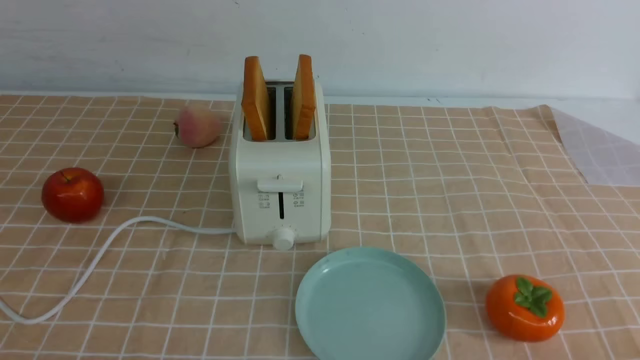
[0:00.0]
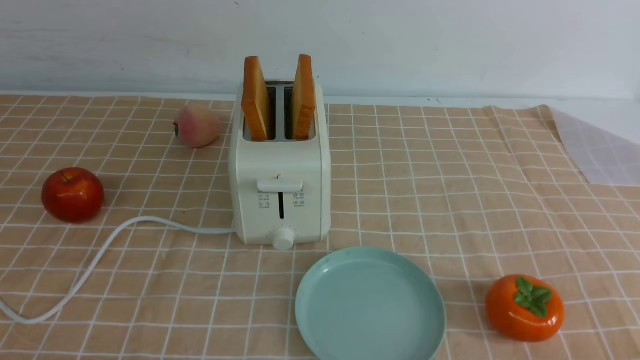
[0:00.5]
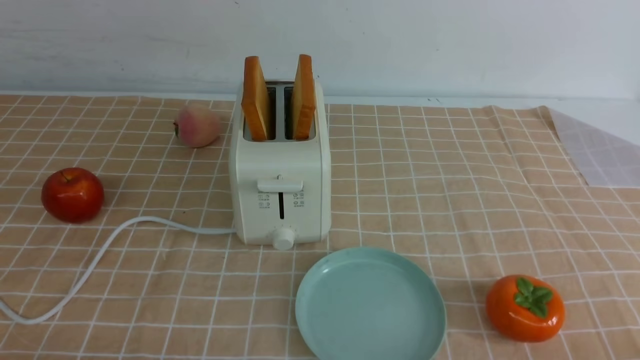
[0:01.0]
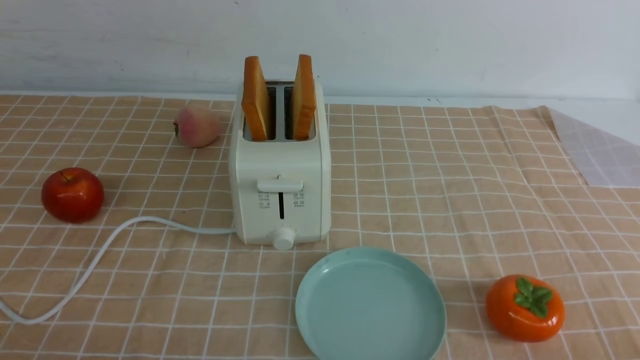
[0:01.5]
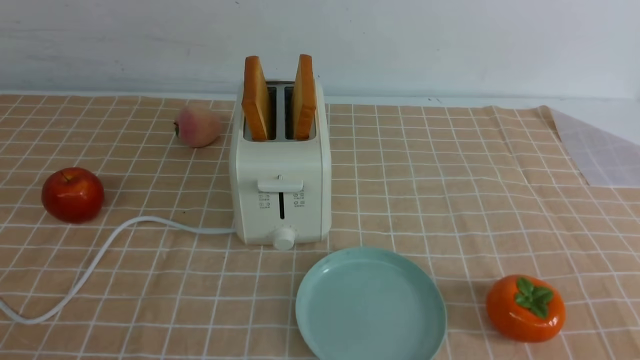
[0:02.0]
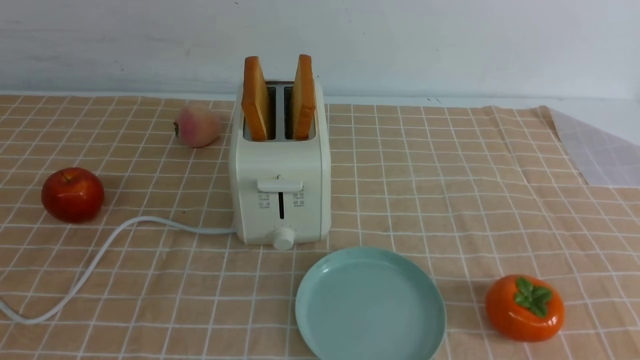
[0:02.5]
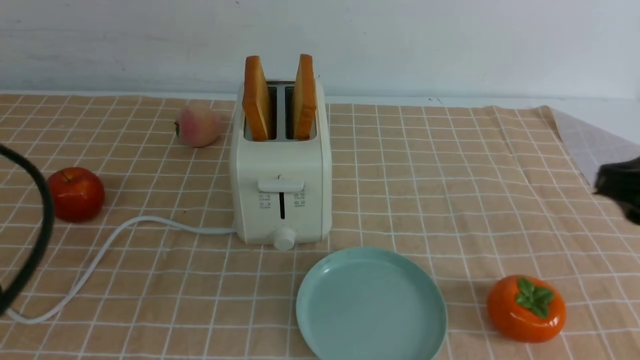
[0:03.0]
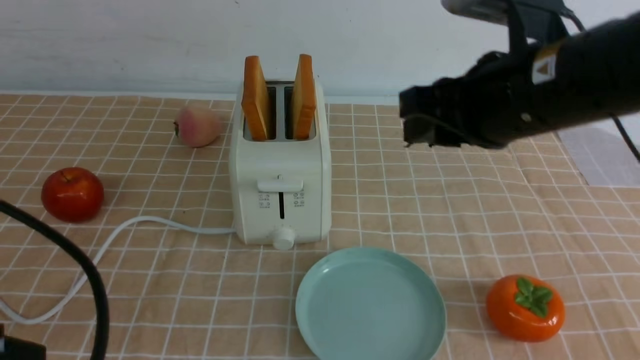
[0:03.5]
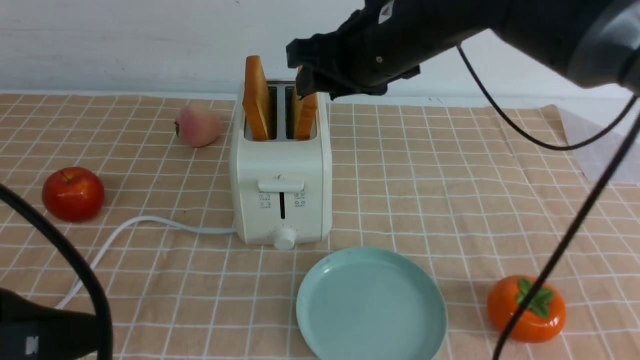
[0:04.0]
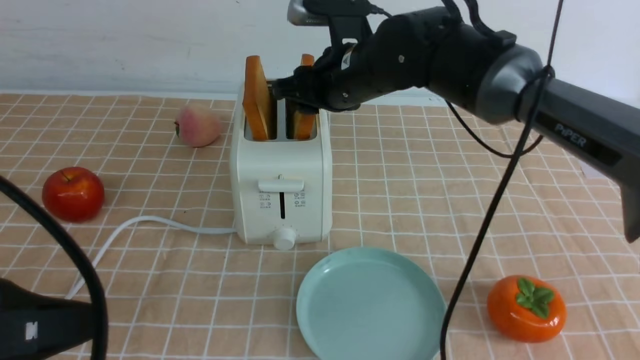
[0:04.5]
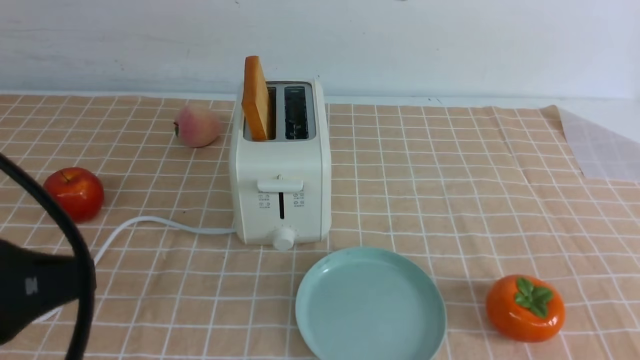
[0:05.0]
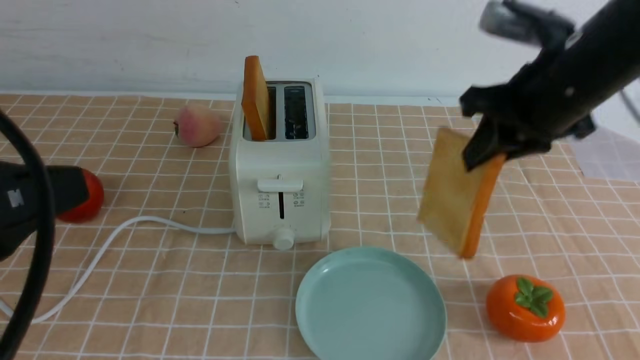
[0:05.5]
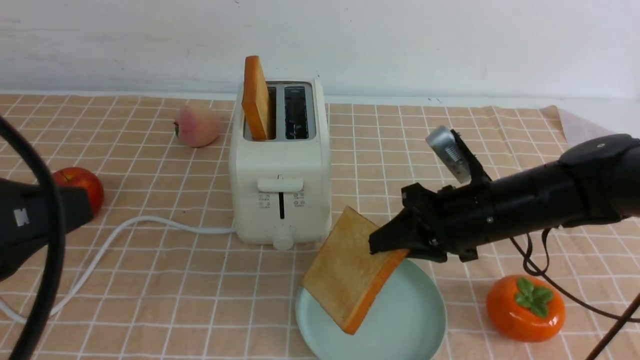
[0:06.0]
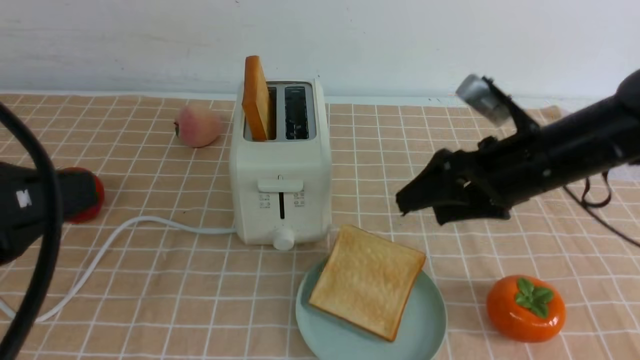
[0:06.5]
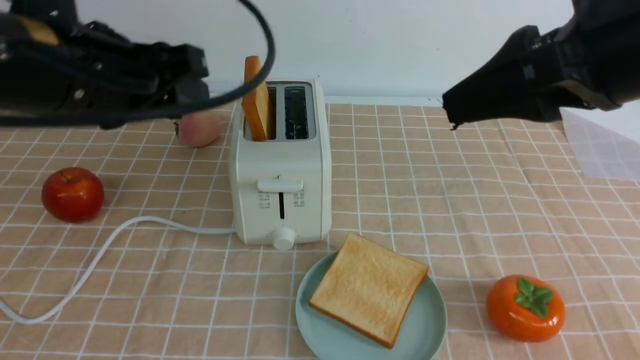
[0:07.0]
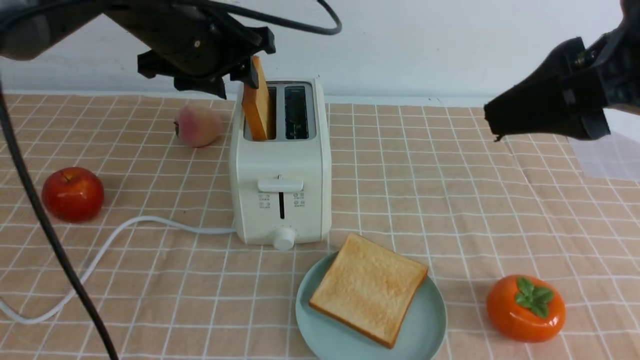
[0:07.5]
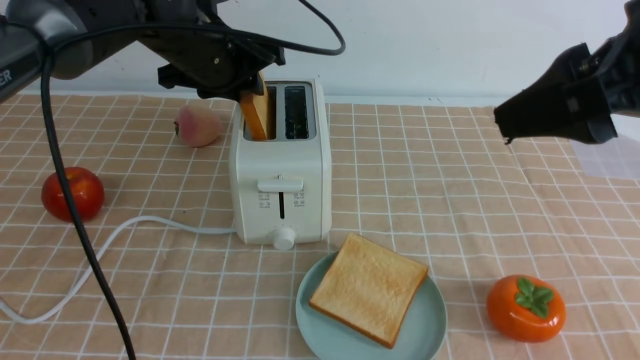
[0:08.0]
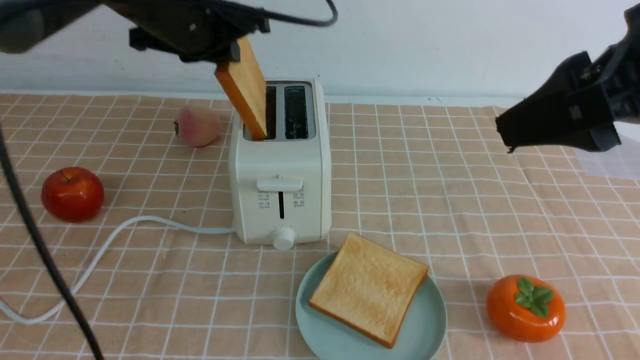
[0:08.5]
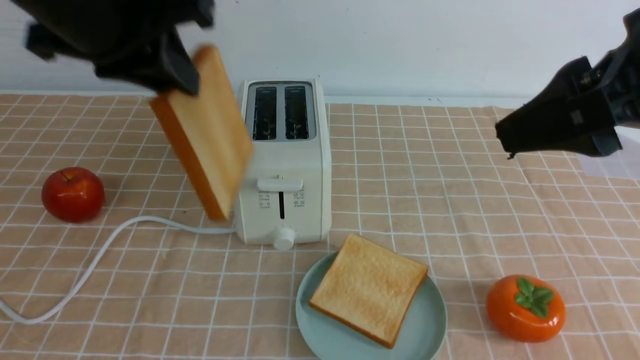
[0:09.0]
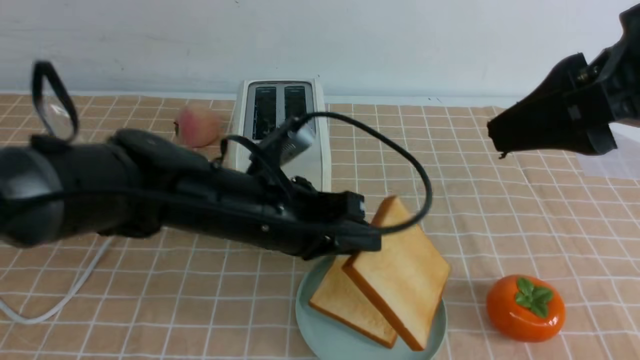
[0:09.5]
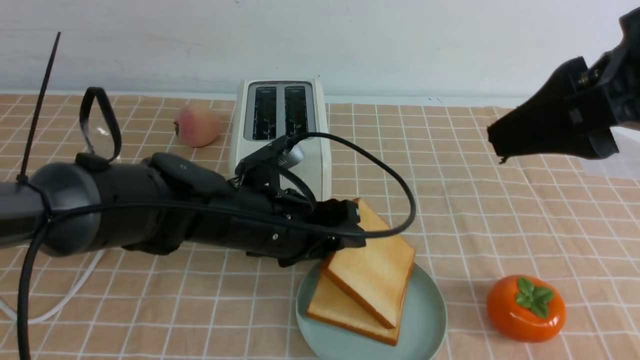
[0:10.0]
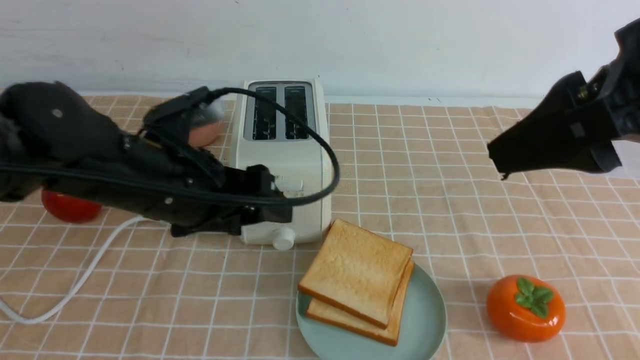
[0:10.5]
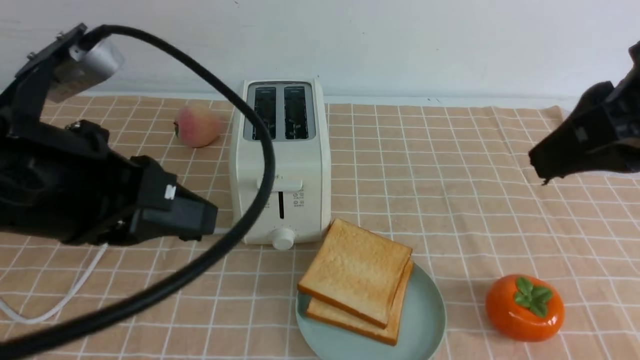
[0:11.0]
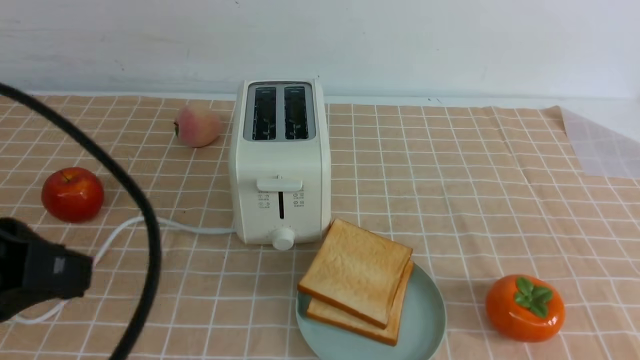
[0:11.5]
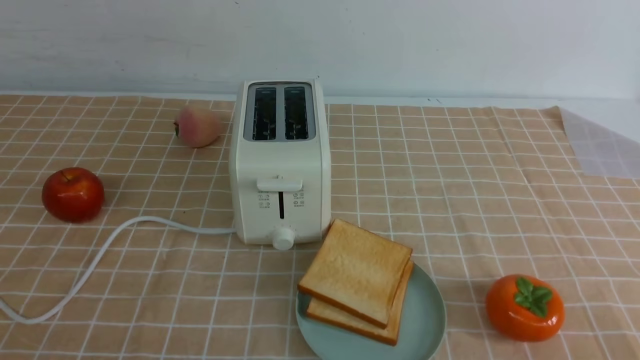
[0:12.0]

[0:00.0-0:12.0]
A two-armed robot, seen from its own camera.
Task of the whole recording: take toasted bread from bread machine on light coffee tablecloth place on plate.
Step, 0:00.0 to 0:04.5: use the right arm to take out a slice of bread.
Step, 0:05.0 to 0:06.5: use the right arm to put a slice of bread into the plate.
Step, 0:07.0 to 0:08.5: use the left arm to take out a slice of bread.
Step, 0:09.0 to 0:10.0: use the left arm to put a slice of bread into the empty plate.
0:02.0 to 0:04.0: The left gripper heads upward and to the right, covering approximately 10 cm. Meanwhile the right gripper goes approximately 40 cm forward and to the left.
0:04.0 to 0:06.0: The right gripper heads downward and to the right, covering roughly 20 cm.
0:06.0 to 0:08.0: The right gripper is displaced upward and backward by about 25 cm, and opens its fingers; the left gripper is displaced forward by approximately 35 cm.
0:08.0 to 0:10.0: The left gripper is displaced backward, downward and to the right by approximately 20 cm.
0:10.0 to 0:12.0: The left gripper goes roughly 35 cm backward, to the left and upward, and closes up; the right gripper heads downward, backward and to the right, covering some 25 cm, and closes its fingers.
